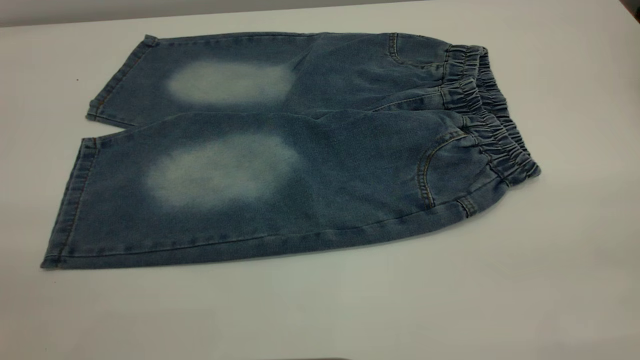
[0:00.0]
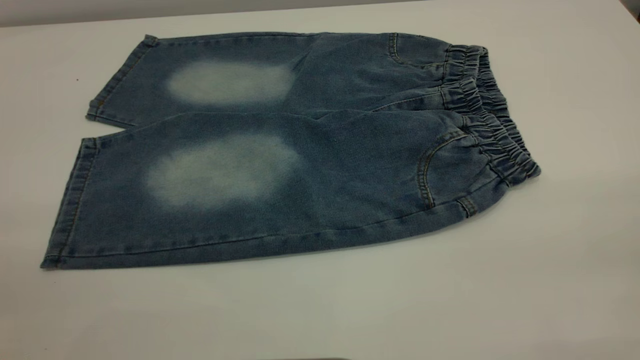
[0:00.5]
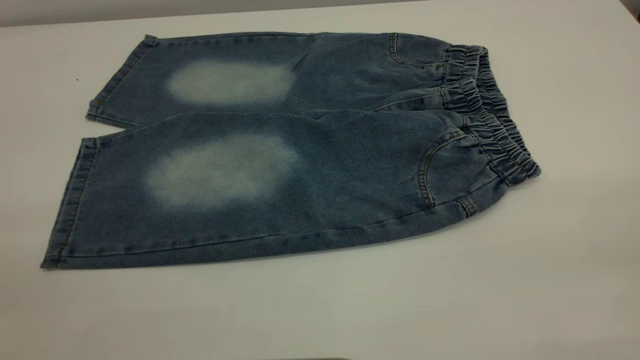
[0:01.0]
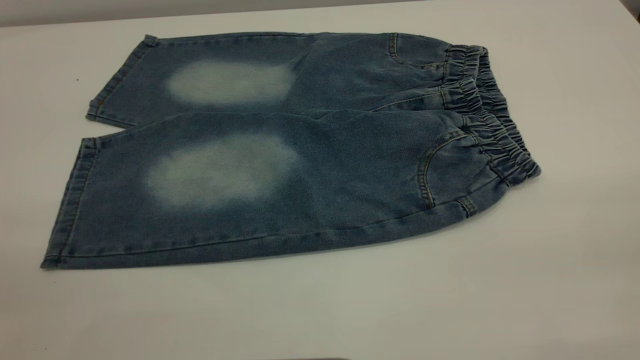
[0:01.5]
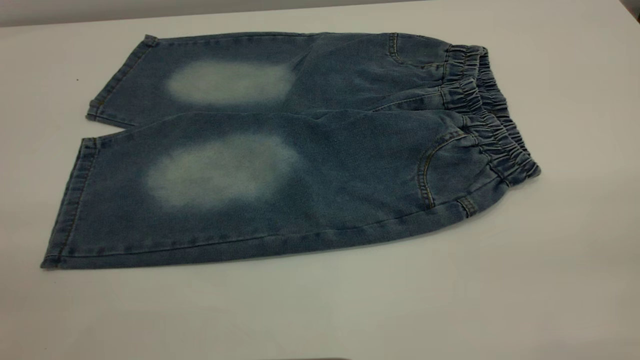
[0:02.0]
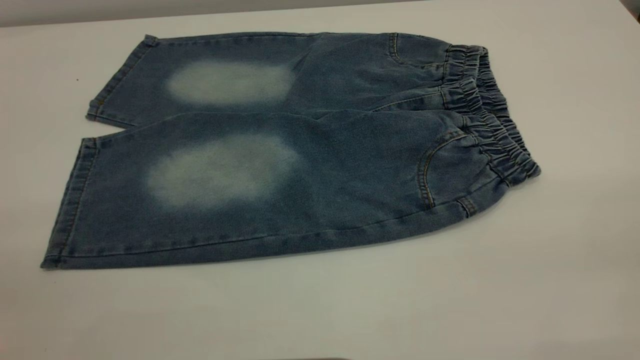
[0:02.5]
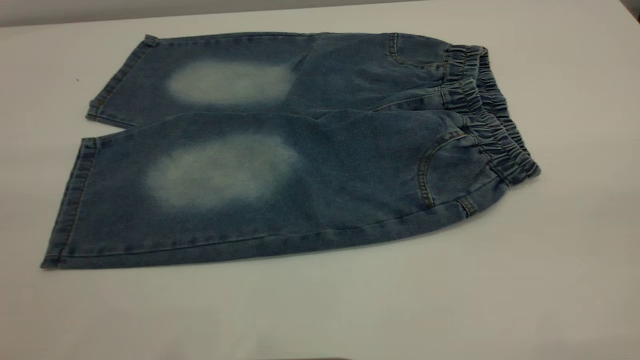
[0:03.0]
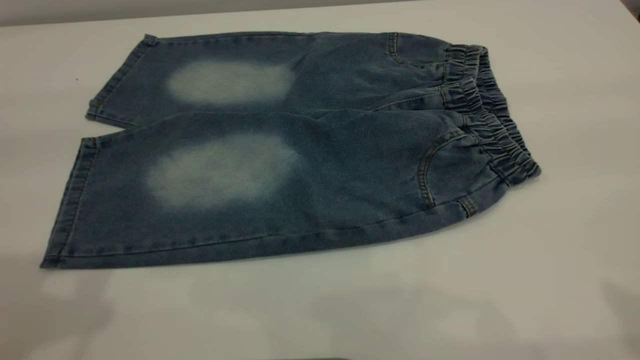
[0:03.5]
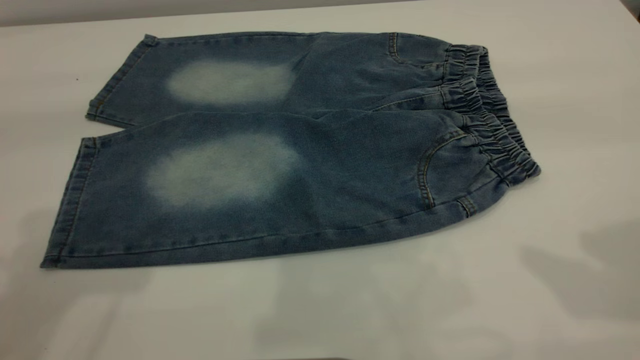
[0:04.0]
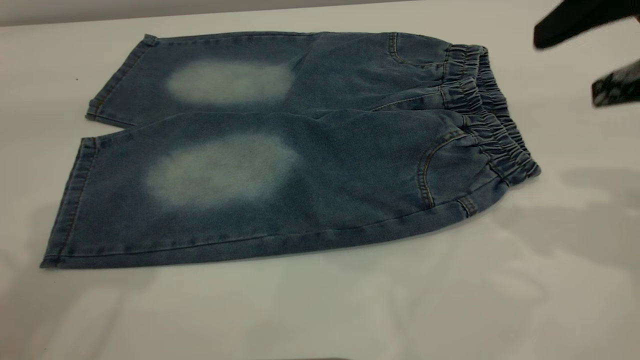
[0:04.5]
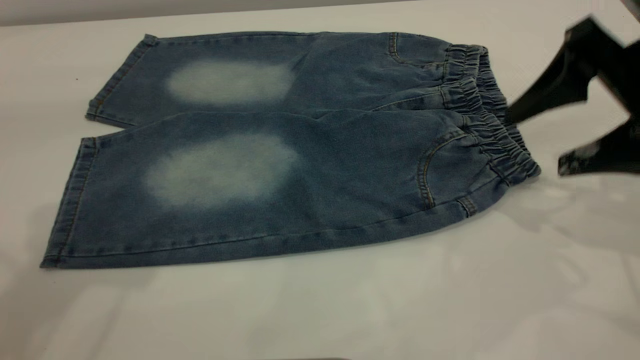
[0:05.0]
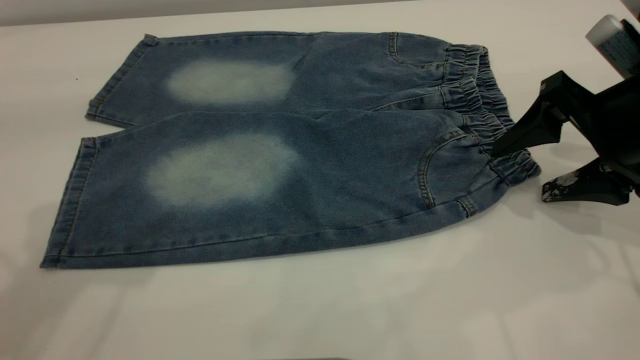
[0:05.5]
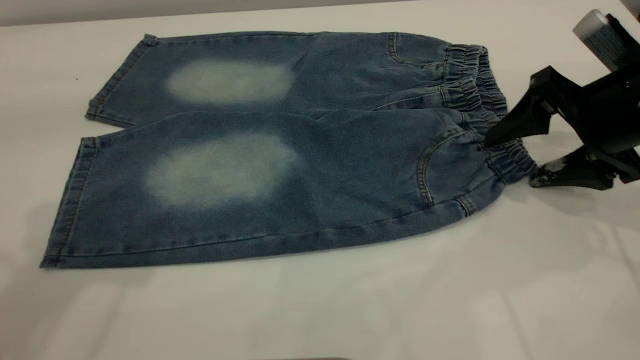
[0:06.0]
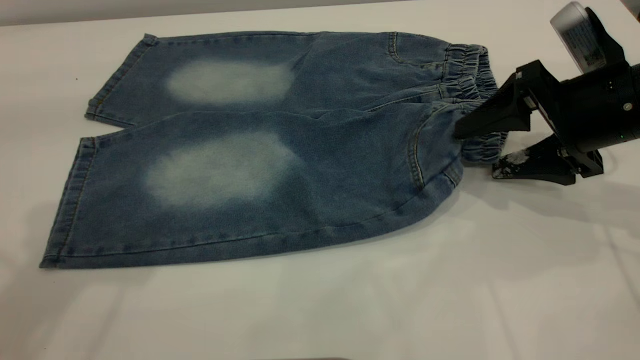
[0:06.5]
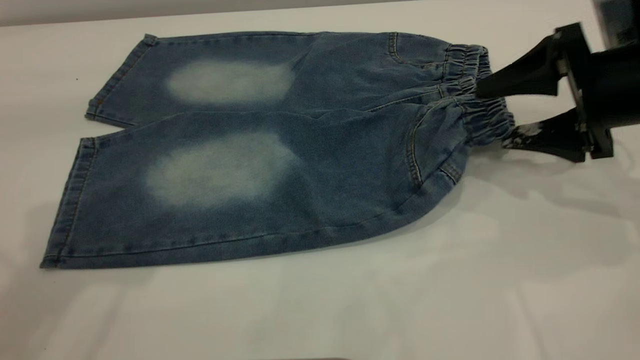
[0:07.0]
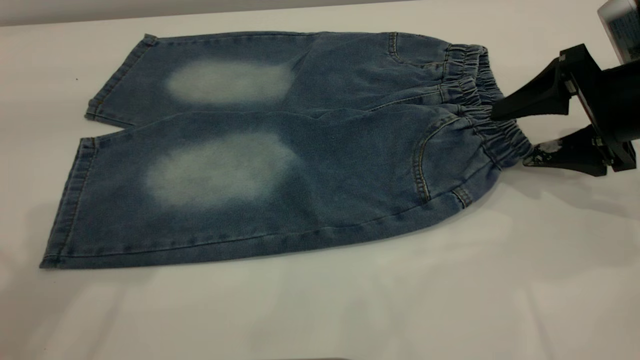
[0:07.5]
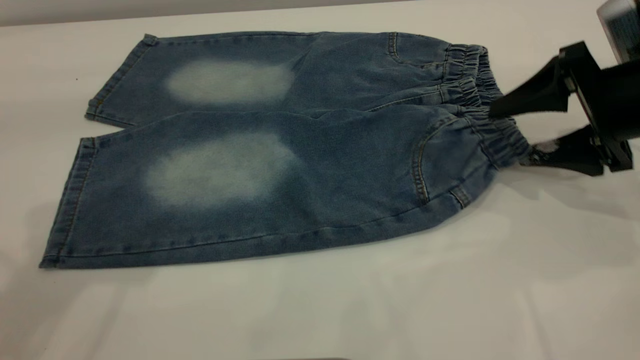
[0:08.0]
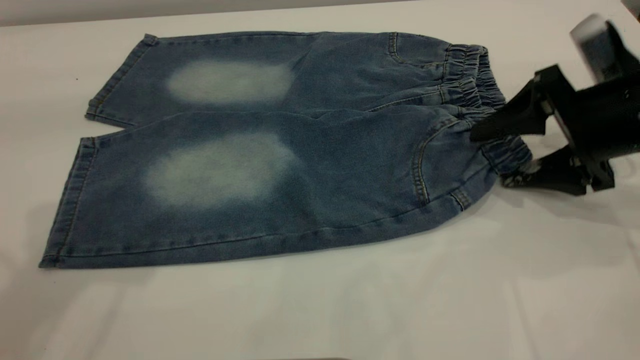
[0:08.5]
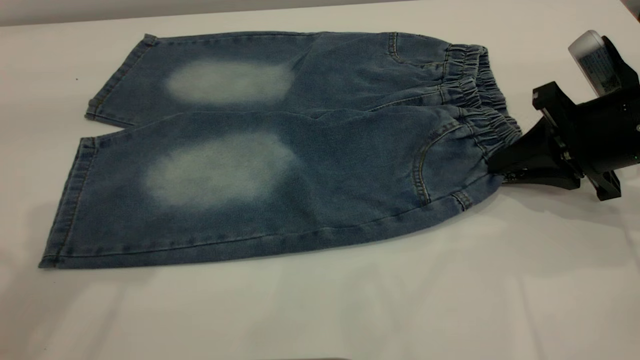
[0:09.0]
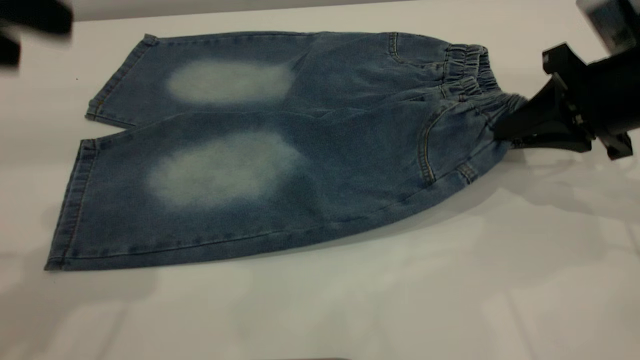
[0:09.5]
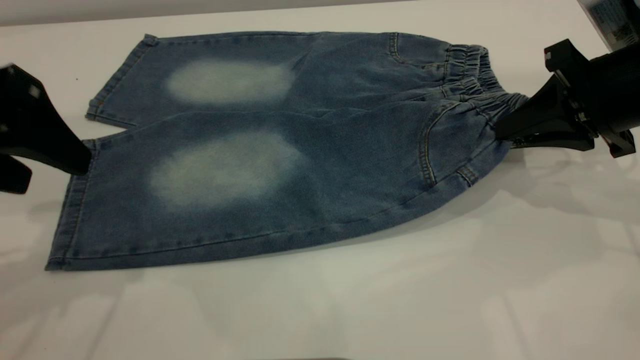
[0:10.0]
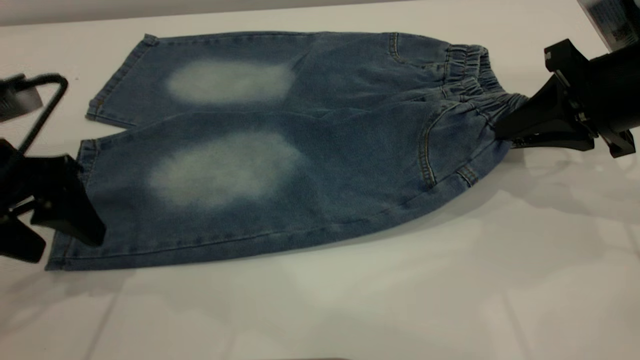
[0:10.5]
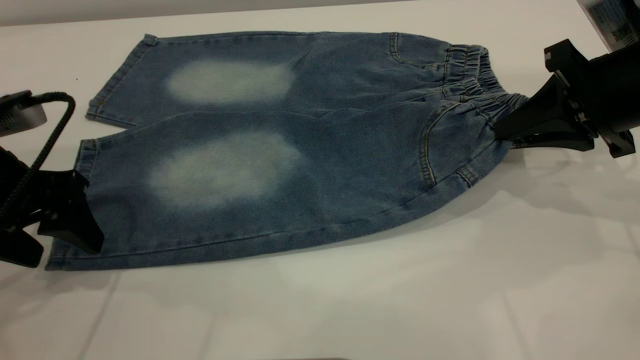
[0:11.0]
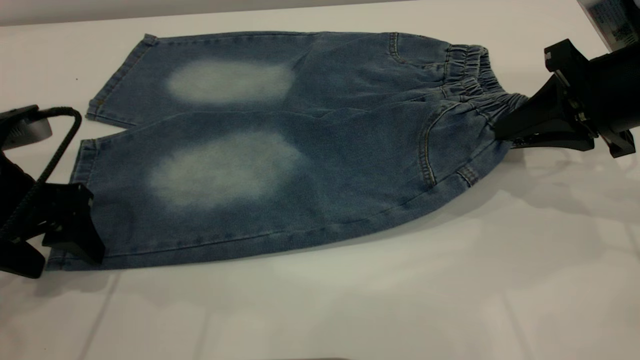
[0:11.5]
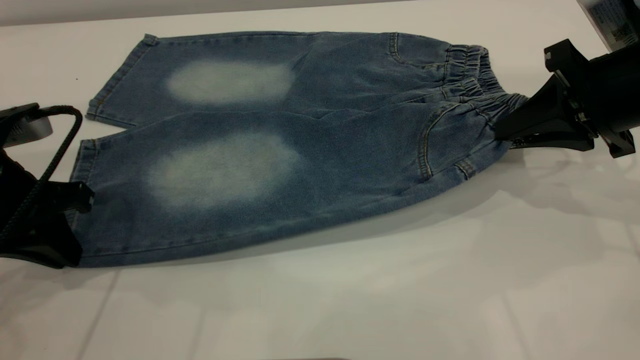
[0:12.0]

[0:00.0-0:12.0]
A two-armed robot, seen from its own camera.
0:00.0 to 0:02.0: The two grippers keep their place.
0:04.0 to 0:06.0: The right gripper shifts approximately 25 cm downward and forward.
0:08.0 to 0:10.0: The left gripper travels downward by roughly 15 cm. Meanwhile the right gripper closes.
0:10.0 to 0:12.0: The left gripper goes some 10 cm downward, and closes.

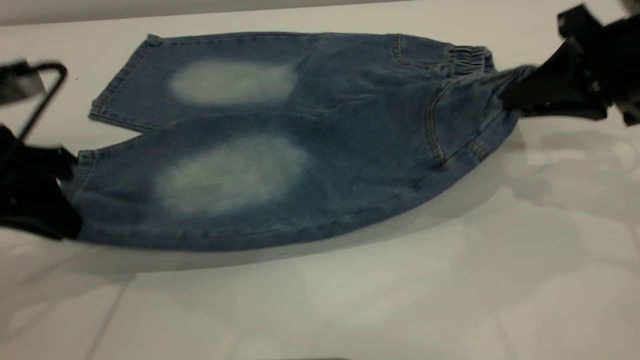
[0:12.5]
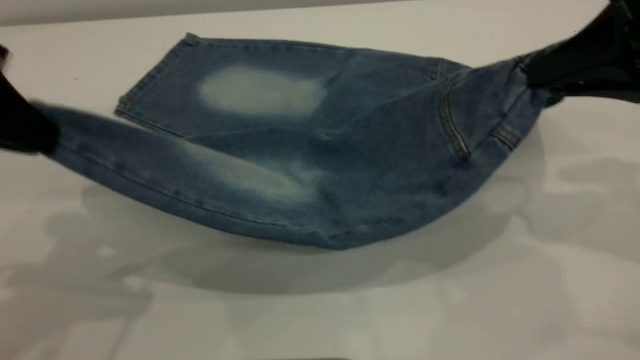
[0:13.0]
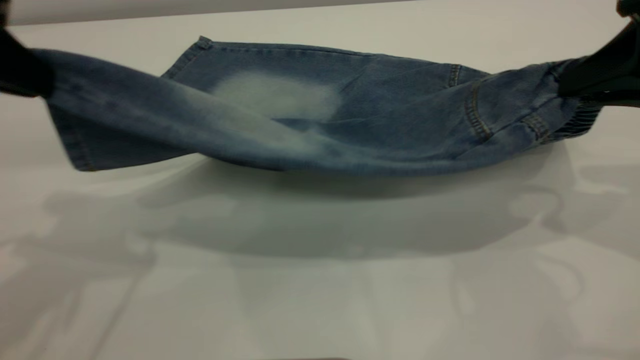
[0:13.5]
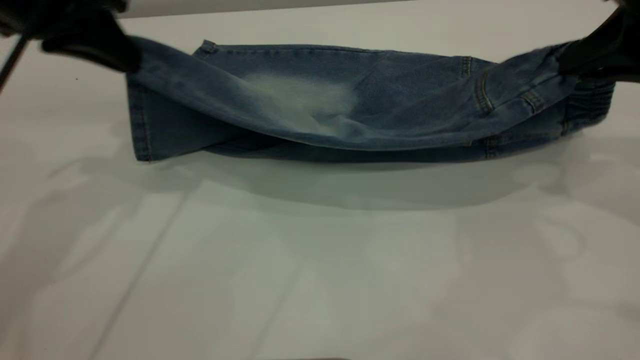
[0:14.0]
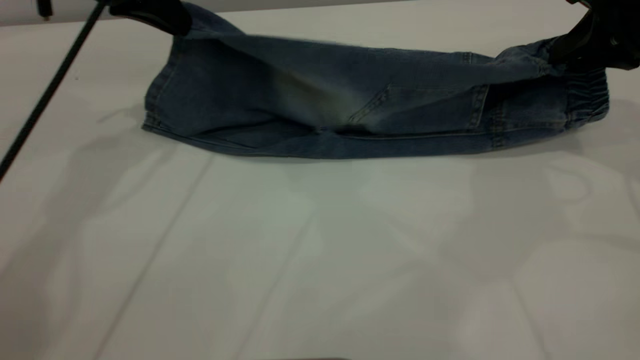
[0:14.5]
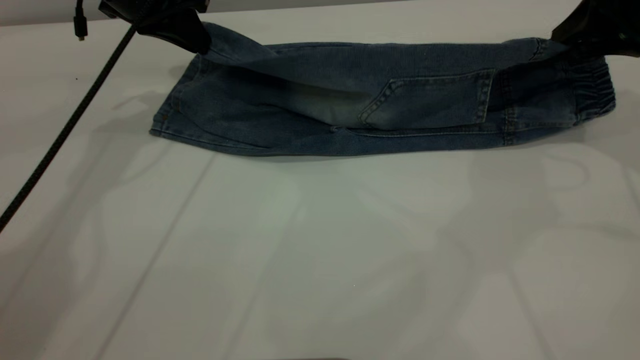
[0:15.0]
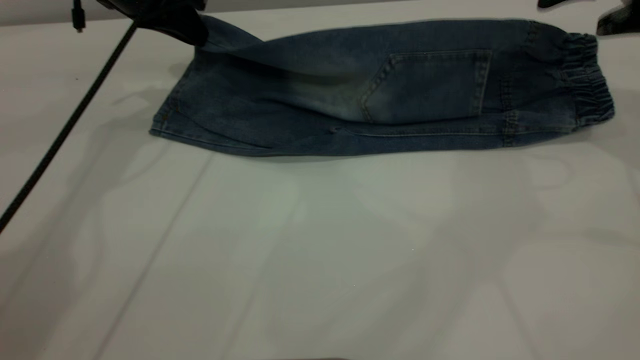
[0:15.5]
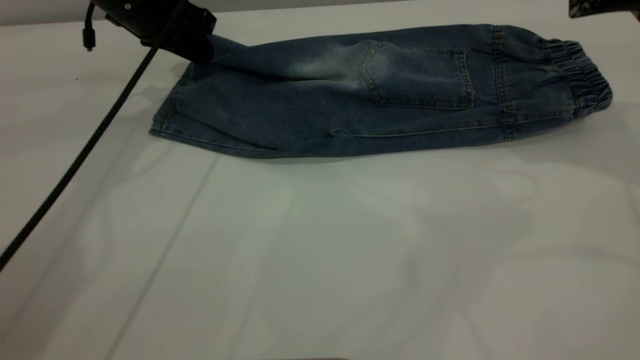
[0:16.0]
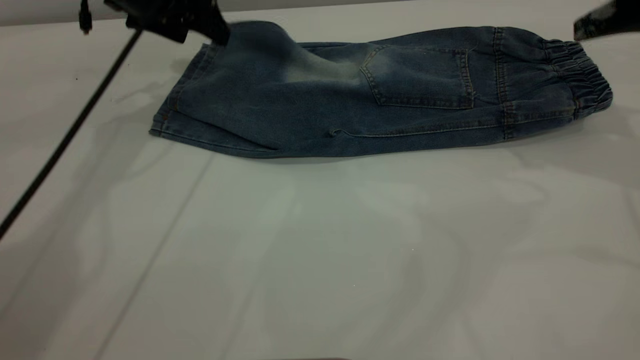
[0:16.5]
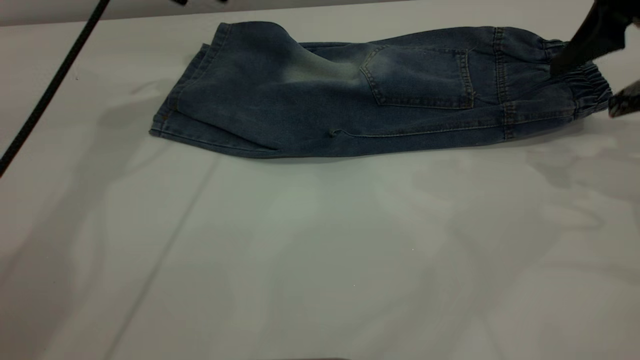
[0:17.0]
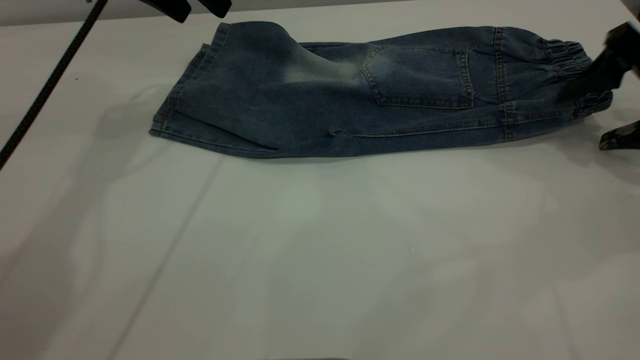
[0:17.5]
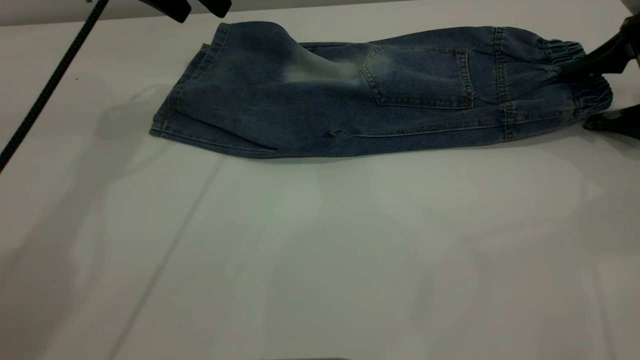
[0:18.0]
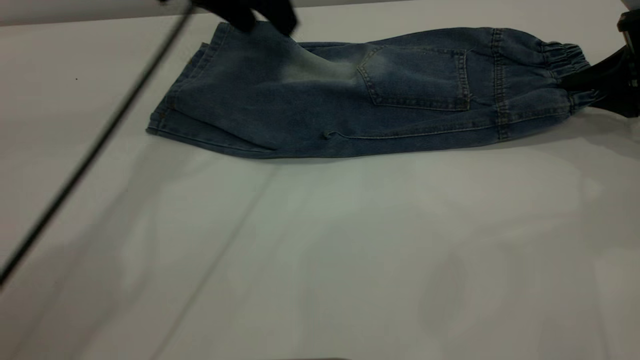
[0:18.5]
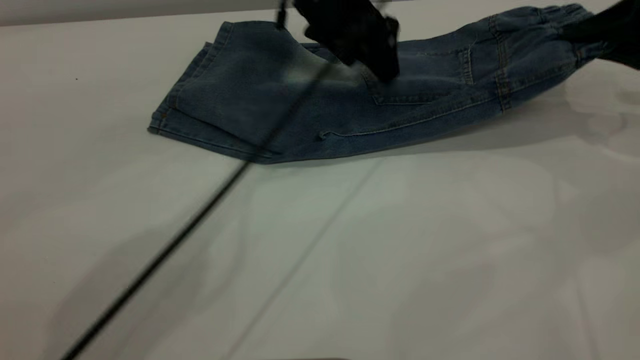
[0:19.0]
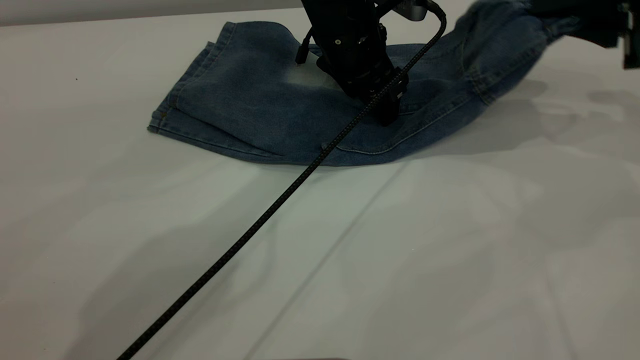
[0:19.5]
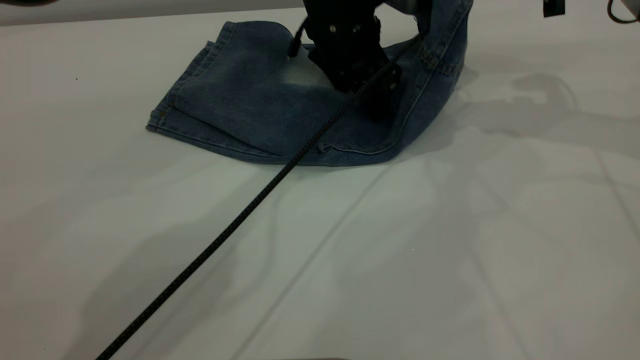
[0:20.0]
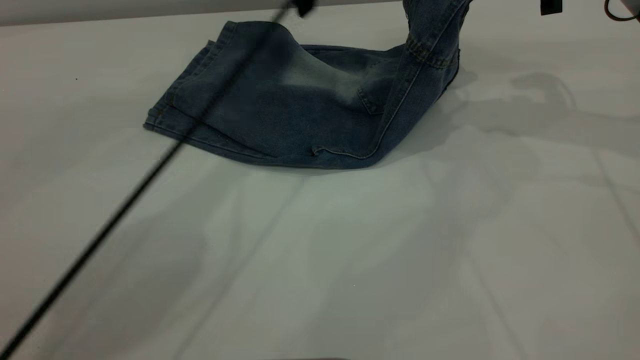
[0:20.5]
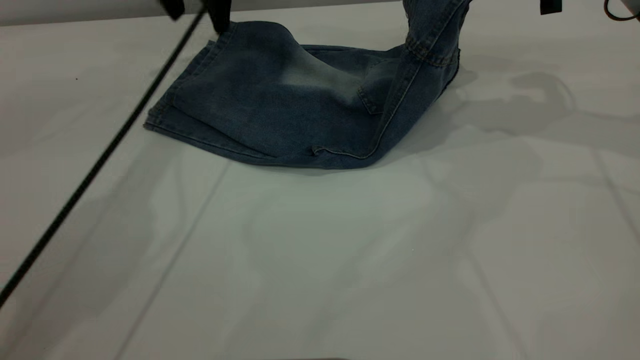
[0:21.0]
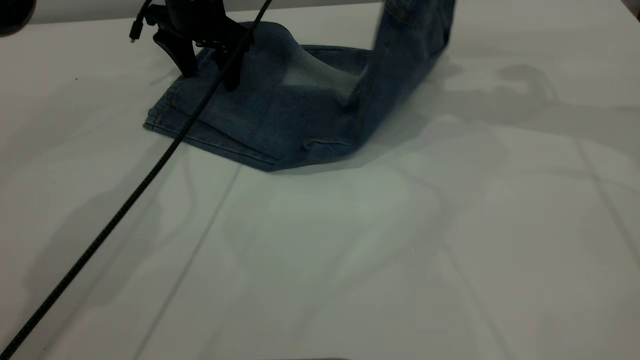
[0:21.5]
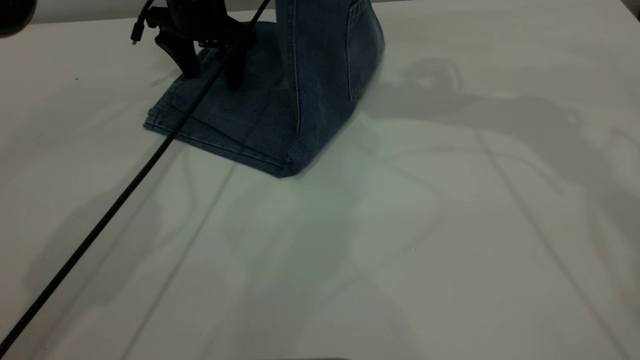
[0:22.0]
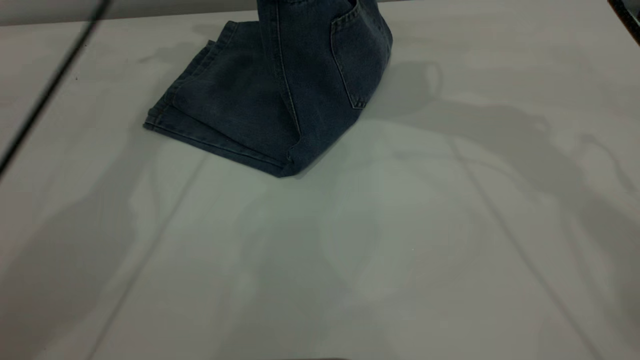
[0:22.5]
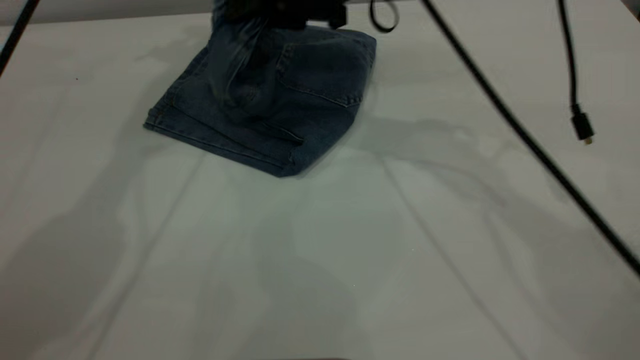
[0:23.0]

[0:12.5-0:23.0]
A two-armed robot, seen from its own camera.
Step, 0:12.5 to 0:16.5: Fold the bottom of the pants upward.
0:12.5 to 0:14.5: The left gripper travels forward by approximately 20 cm; the right gripper travels forward by some 5 cm.
0:14.5 to 0:16.5: The left gripper opens up. Meanwhile the right gripper goes approximately 5 cm upward, and opens.
0:16.5 to 0:19.0: The left gripper moves to the right, approximately 20 cm; the right gripper is displaced downward and to the right by about 10 cm, and closes.
0:19.0 to 0:21.0: The right gripper is displaced to the left and upward by approximately 10 cm. Meanwhile the left gripper moves to the left and forward, approximately 15 cm.
0:21.0 to 0:23.0: The right gripper travels to the left by some 25 cm. Meanwhile the left gripper heads upward, covering some 15 cm.
